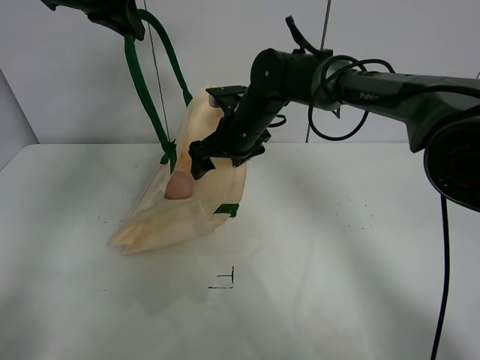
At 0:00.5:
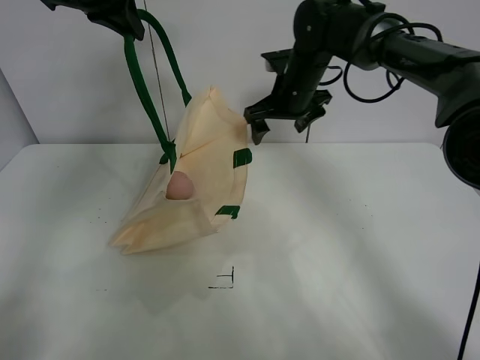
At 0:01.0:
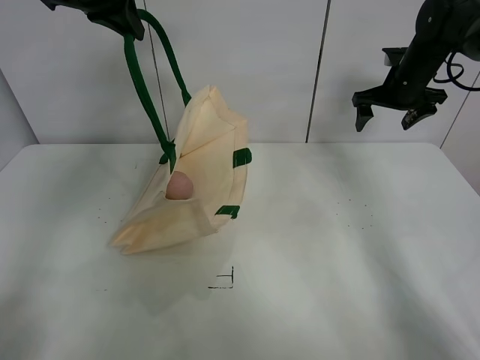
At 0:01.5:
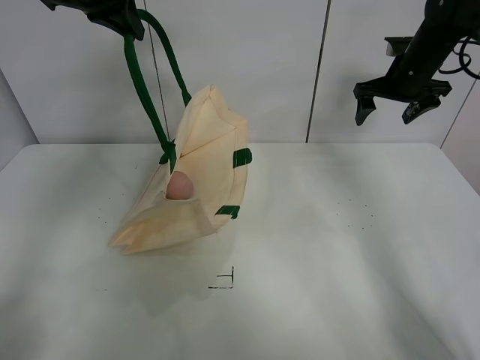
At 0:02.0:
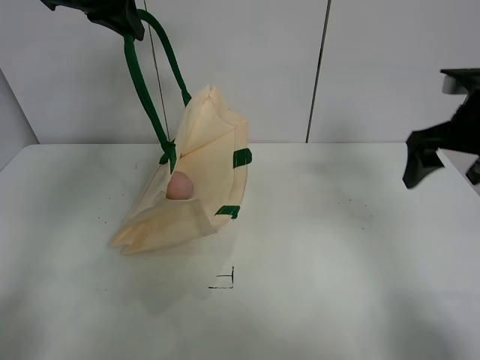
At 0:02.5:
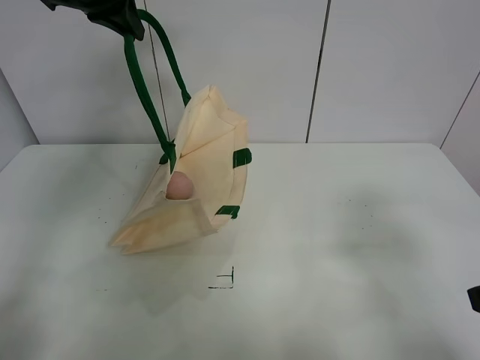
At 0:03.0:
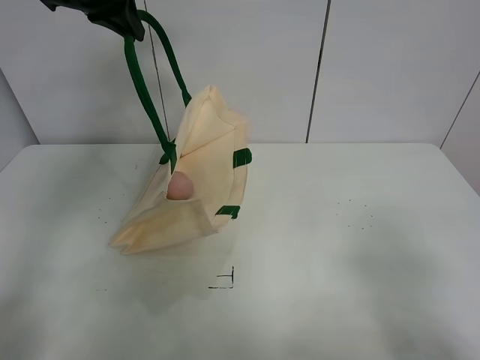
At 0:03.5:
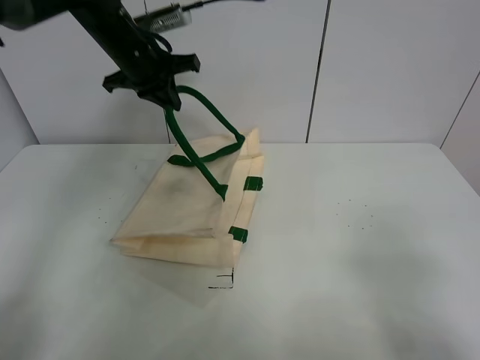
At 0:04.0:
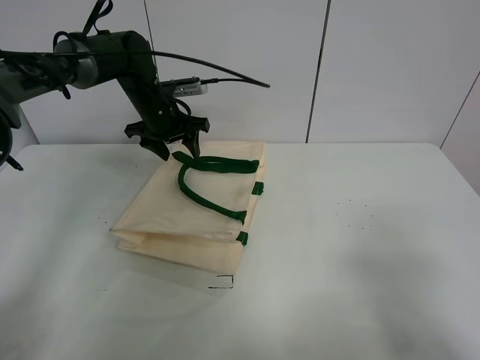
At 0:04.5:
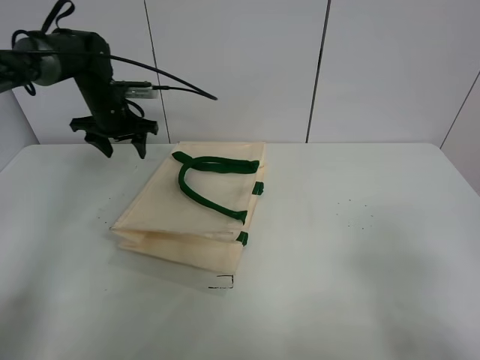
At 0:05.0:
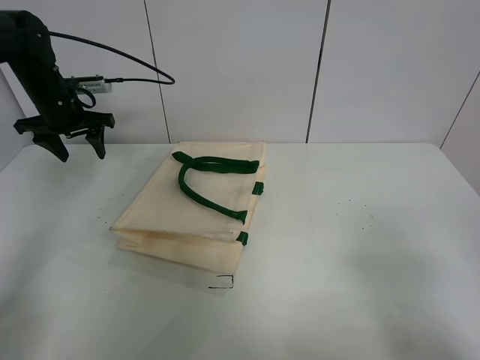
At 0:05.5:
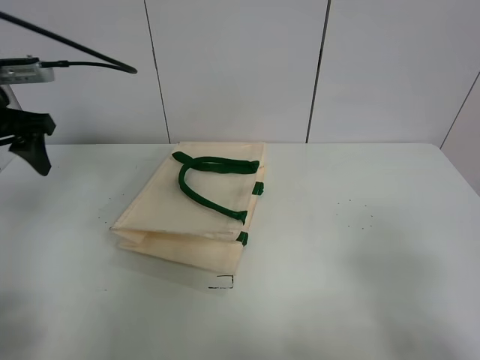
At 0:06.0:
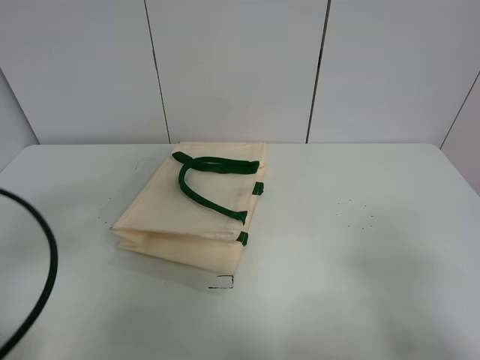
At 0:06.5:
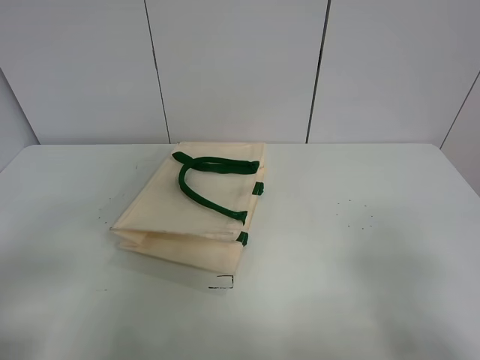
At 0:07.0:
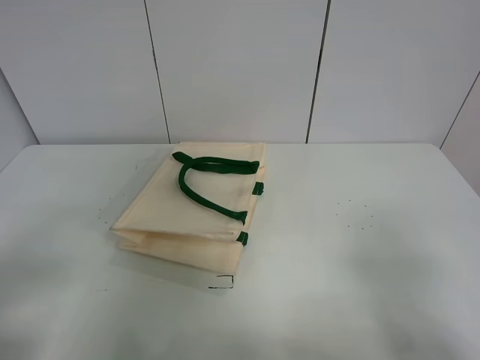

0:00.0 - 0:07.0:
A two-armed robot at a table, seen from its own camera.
Task of the whole recording: open the white linen bag and put the peach in the bag.
Step, 0:00.5 - 0:04.0: Put down the handbag with left gripper.
0:00.0 - 0:02.0: The right gripper is displaced to the right and backward by some 30 cm.
0:02.0 - 0:03.5: The right gripper is displaced backward by about 30 cm; the left gripper goes about 10 cm downward.
0:03.5 - 0:05.0: The left gripper moves to the left and downward, about 20 cm, and opens up.
0:05.0 - 0:07.0: The left gripper shifts approximately 50 cm backward.
